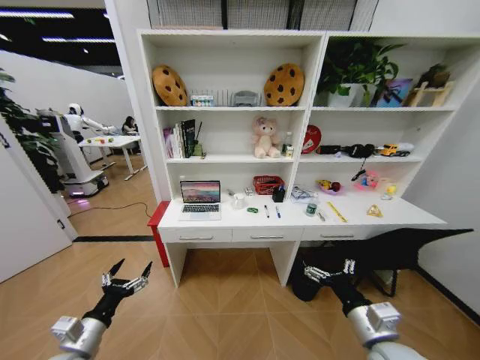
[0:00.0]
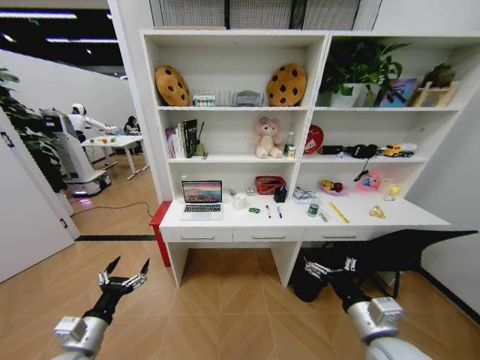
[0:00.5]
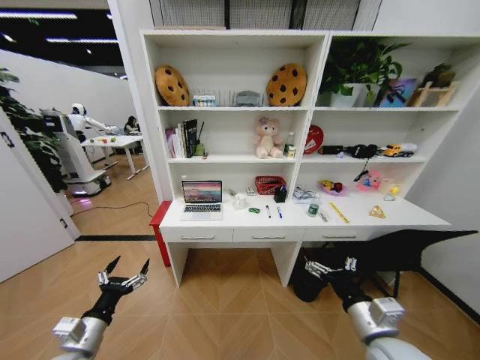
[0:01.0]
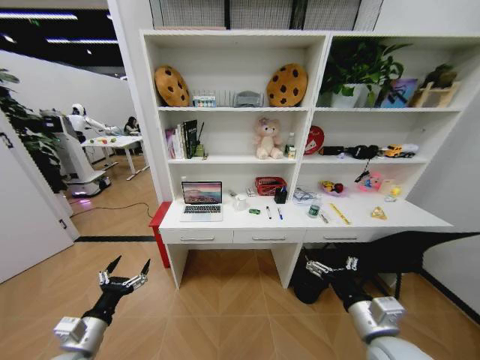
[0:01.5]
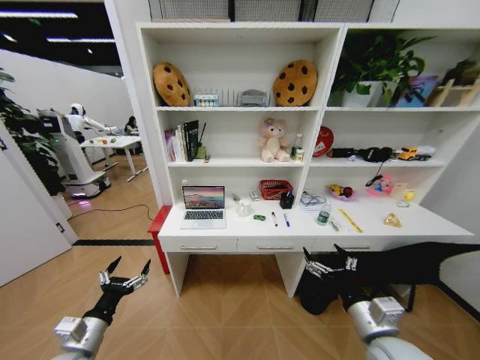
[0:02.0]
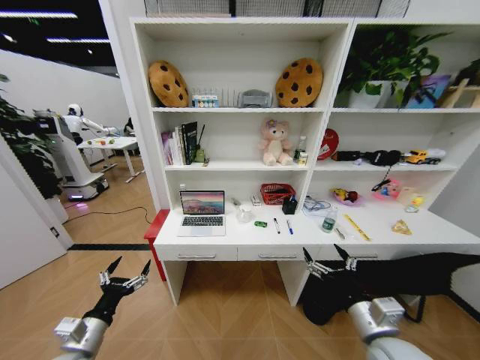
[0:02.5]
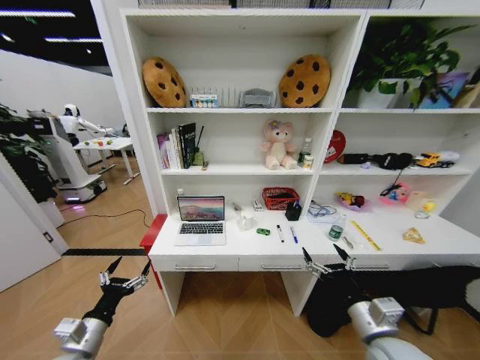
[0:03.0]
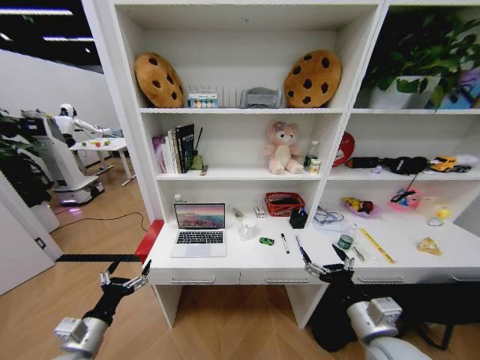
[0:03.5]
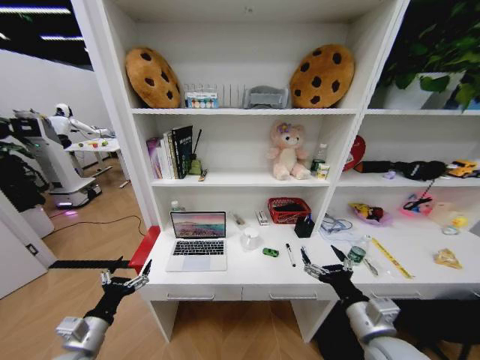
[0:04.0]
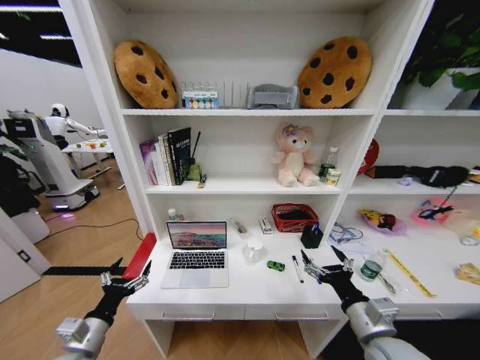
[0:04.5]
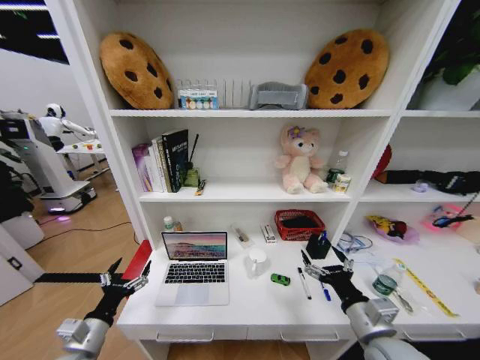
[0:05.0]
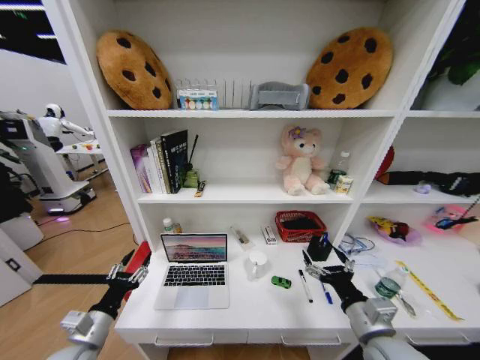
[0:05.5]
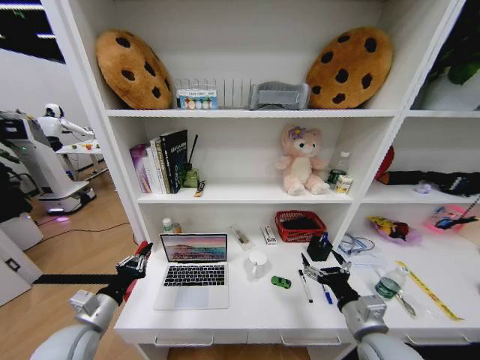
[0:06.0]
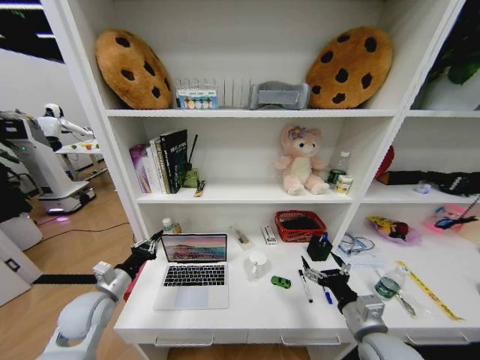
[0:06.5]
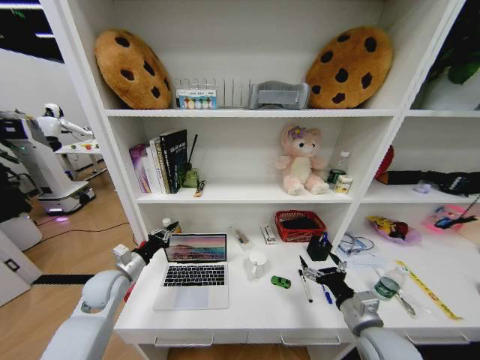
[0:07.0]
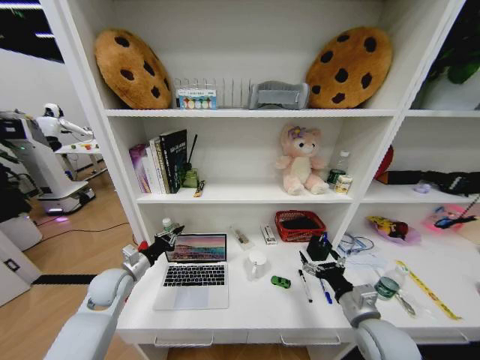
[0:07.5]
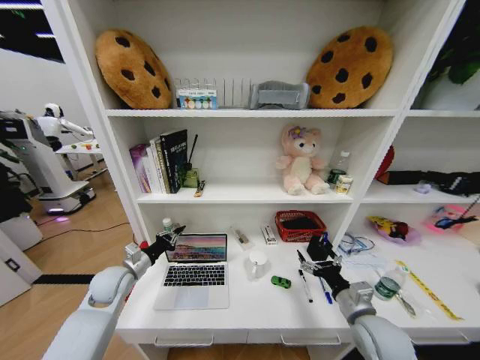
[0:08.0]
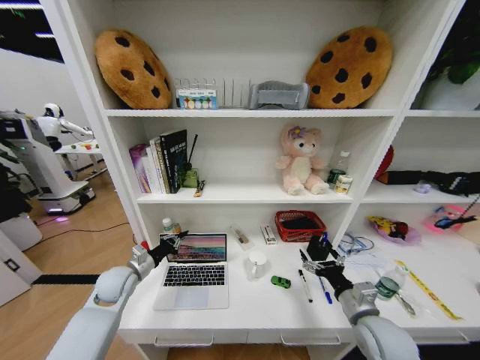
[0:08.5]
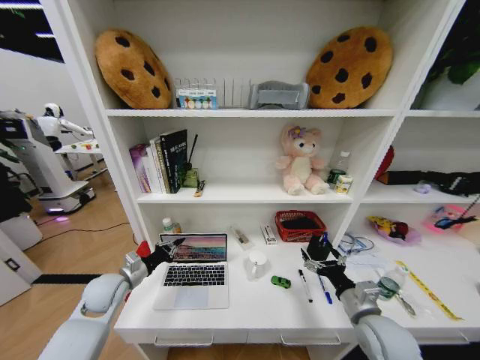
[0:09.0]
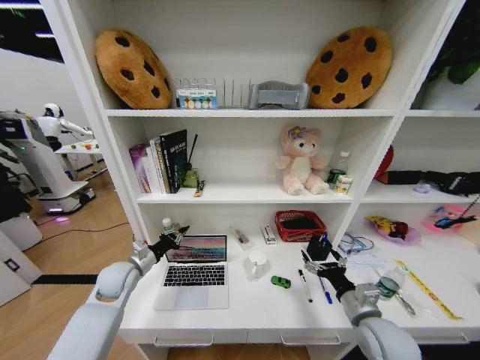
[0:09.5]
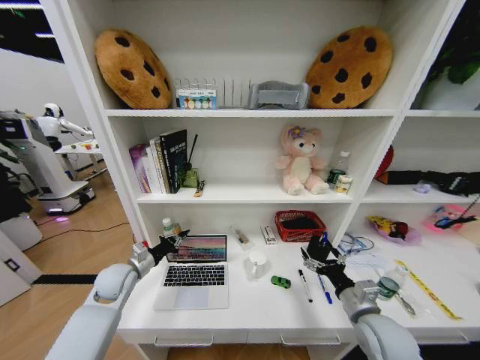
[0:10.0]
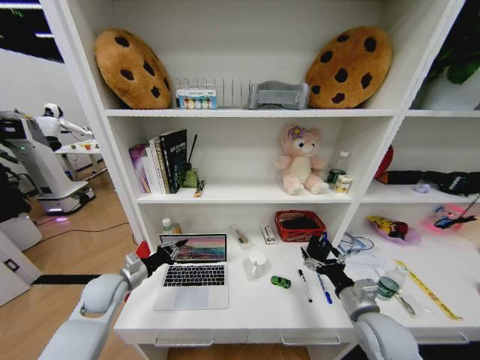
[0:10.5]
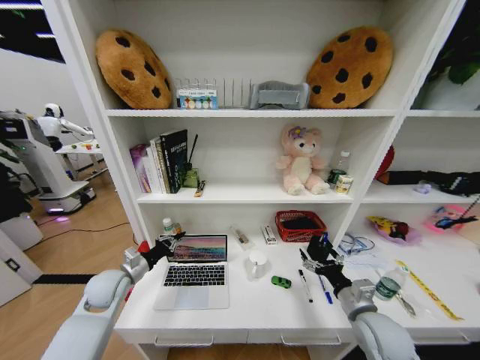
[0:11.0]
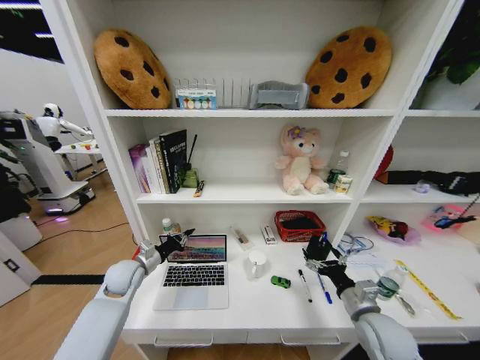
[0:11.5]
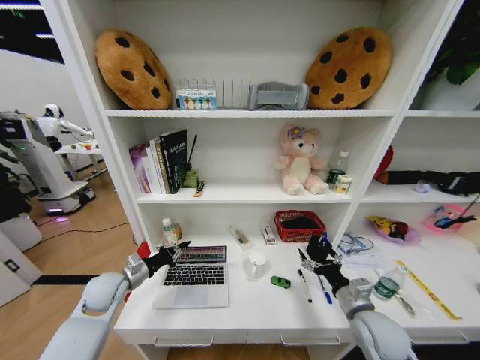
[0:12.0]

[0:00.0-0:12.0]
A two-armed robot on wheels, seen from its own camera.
Task of the whole recording: Organize the objects on the table.
0:04.0 to 0:06.0: The left gripper changes place by approximately 5 cm, and closes its fingers.
0:06.0 to 0:08.0: The right gripper ends up about 5 cm from where it was. The left gripper goes approximately 15 cm forward.
0:08.0 to 0:12.0: The grippers move only a little.

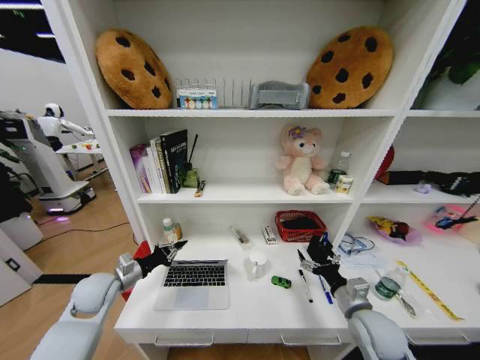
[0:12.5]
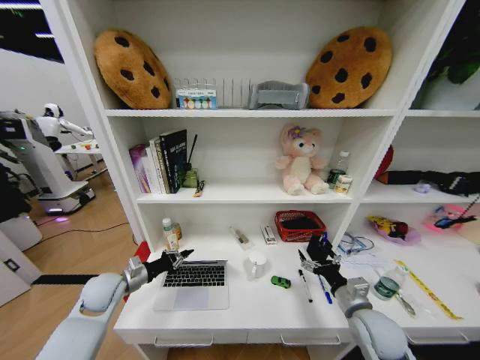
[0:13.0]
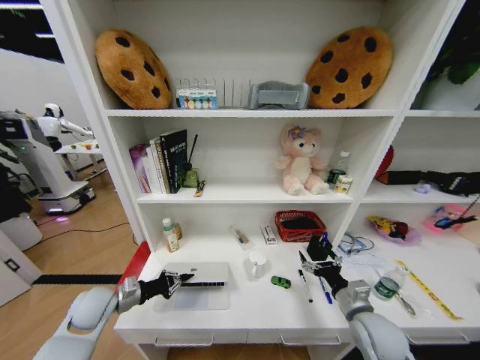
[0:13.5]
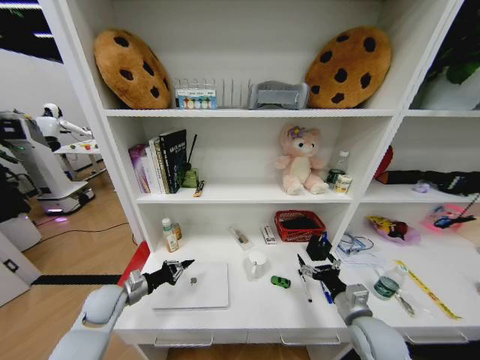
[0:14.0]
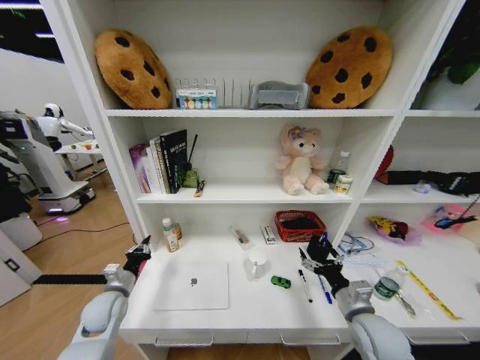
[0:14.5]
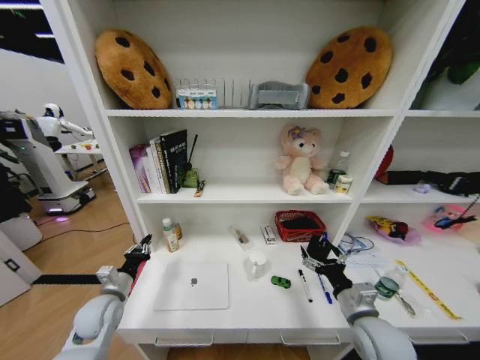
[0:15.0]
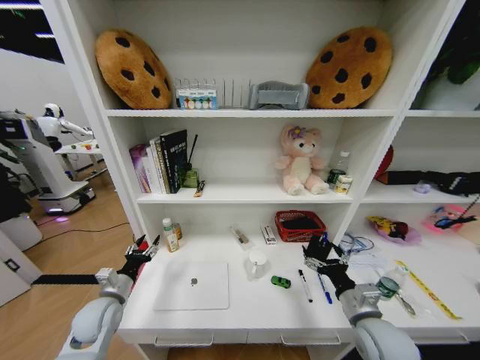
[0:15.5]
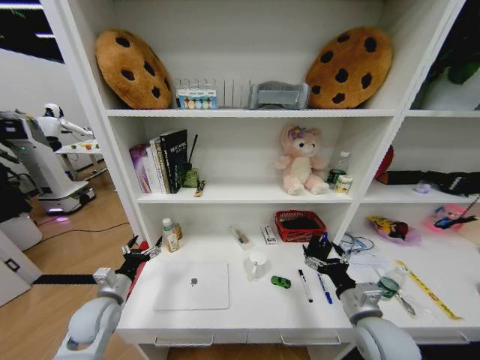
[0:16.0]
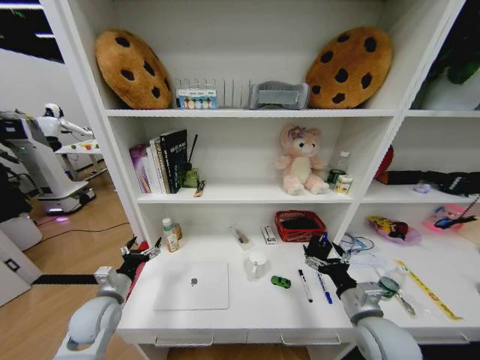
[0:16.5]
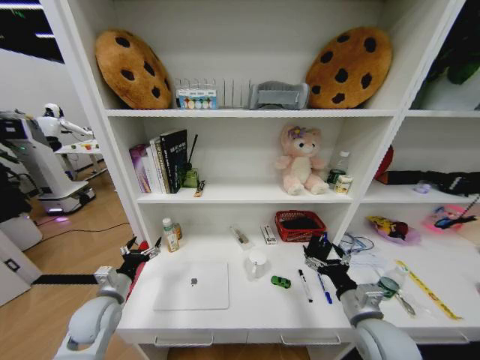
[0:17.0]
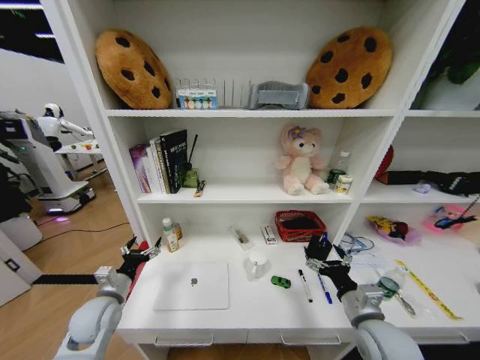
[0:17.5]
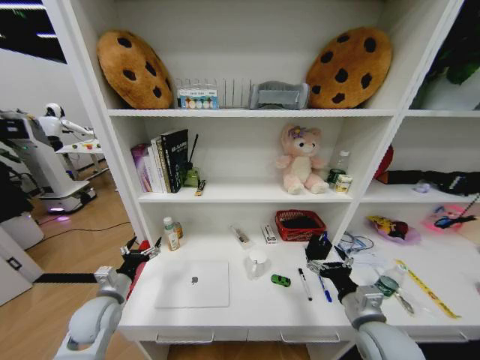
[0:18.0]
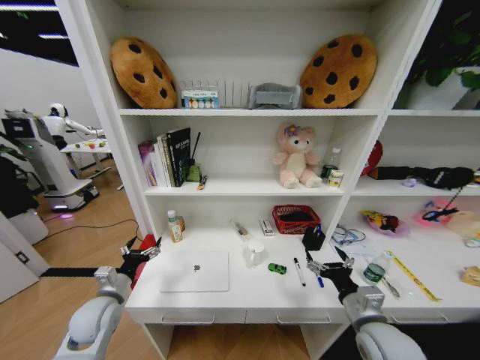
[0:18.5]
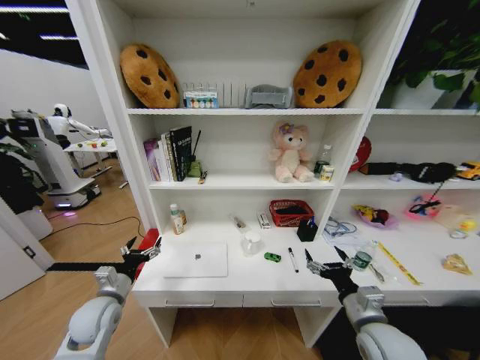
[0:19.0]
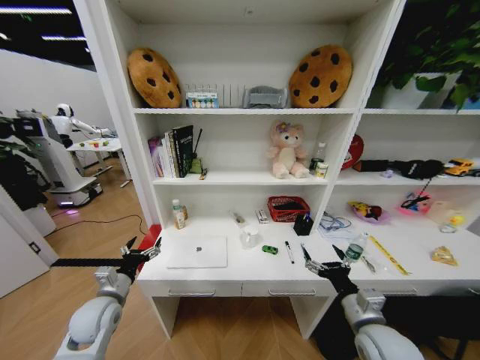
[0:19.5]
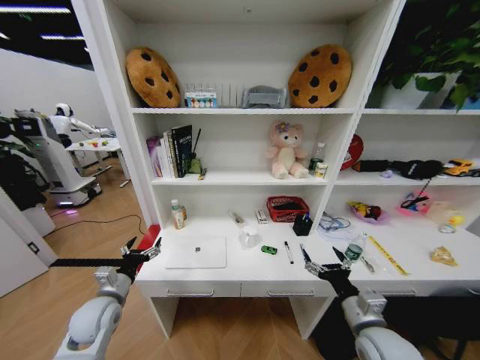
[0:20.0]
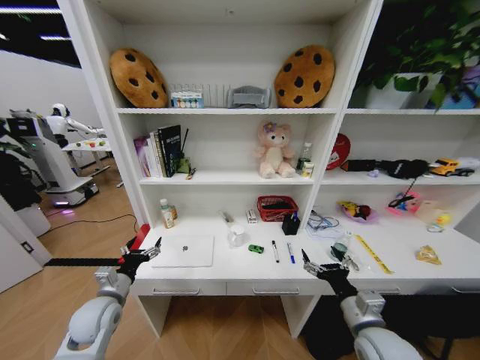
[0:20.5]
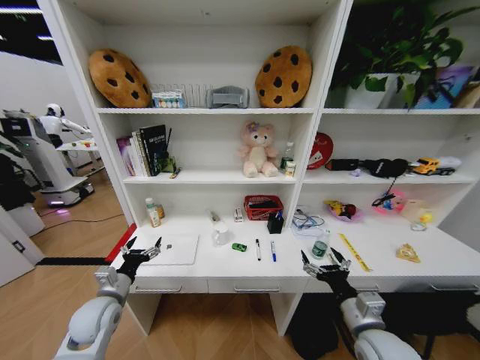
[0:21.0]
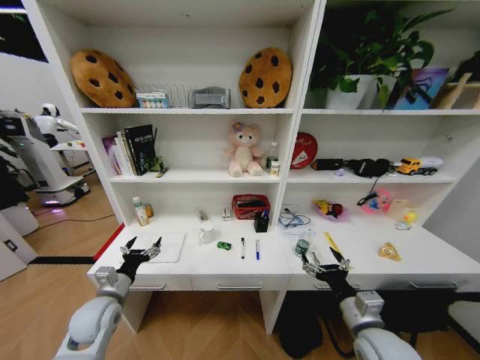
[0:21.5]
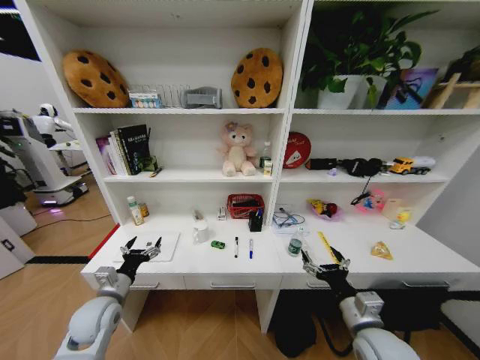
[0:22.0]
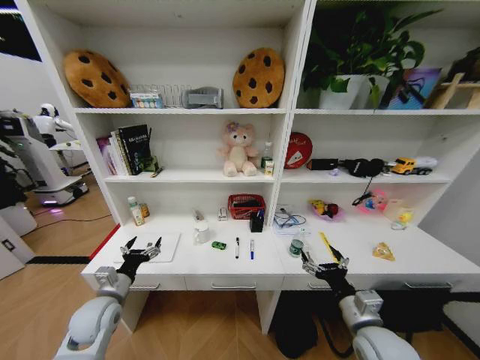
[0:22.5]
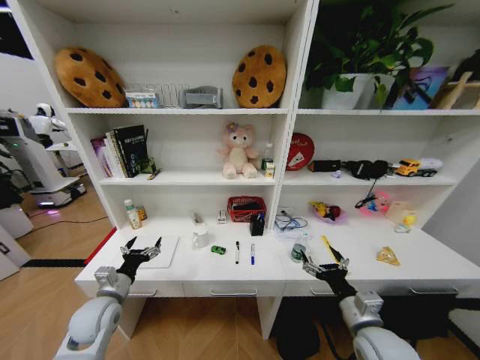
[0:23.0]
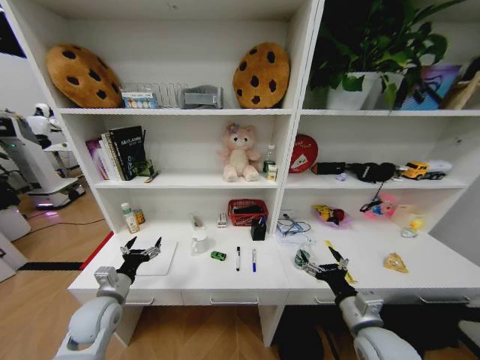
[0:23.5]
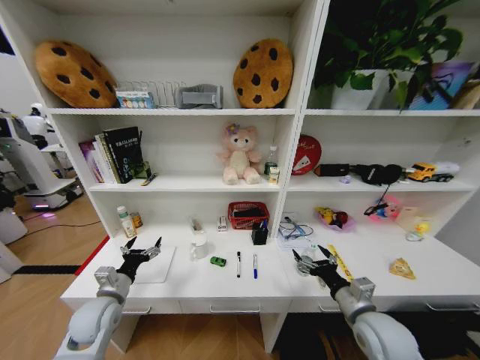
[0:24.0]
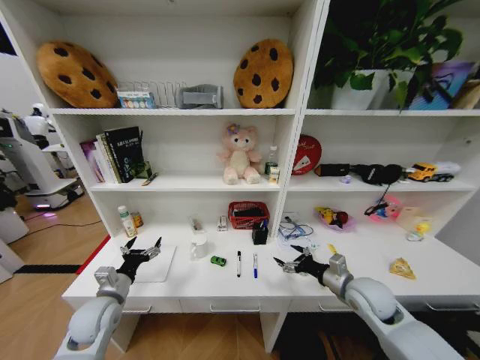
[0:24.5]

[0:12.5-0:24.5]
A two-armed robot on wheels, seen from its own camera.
Task of the whole recording: Organize the objects on the table.
0:12.5 to 0:14.5: The left gripper goes approximately 5 cm downward.
0:14.5 to 0:16.5: The left gripper opens its fingers.
0:22.5 to 0:24.5: The right gripper travels forward by some 10 cm.

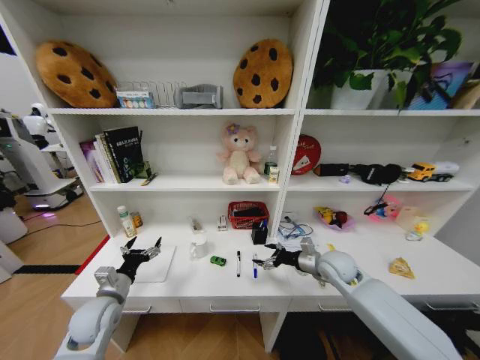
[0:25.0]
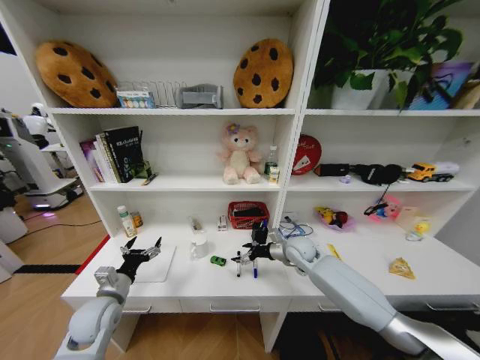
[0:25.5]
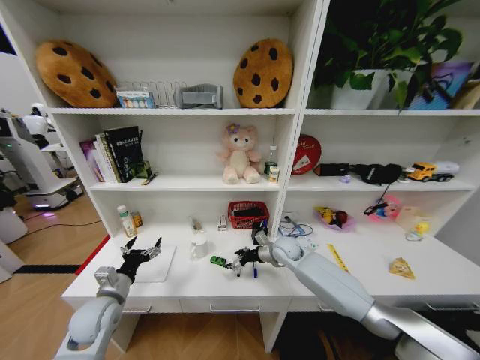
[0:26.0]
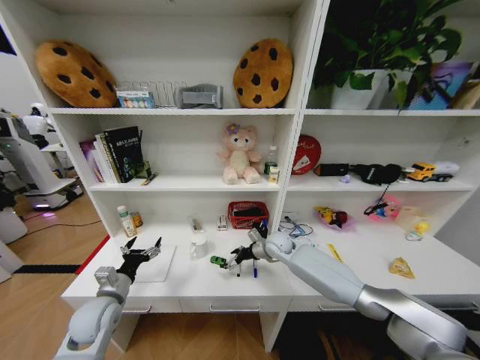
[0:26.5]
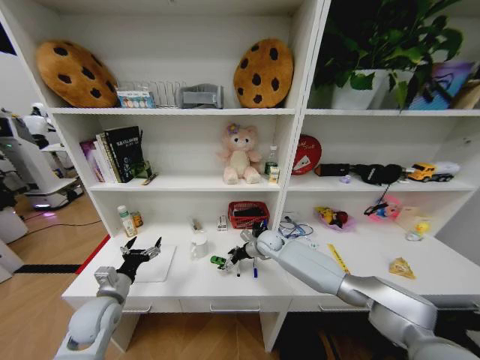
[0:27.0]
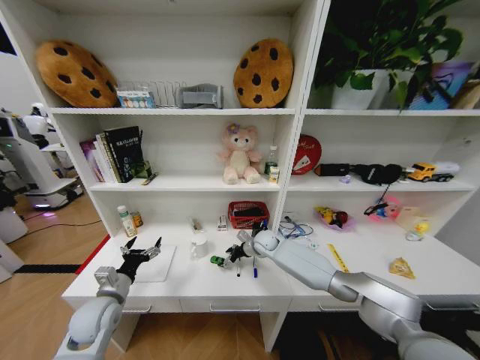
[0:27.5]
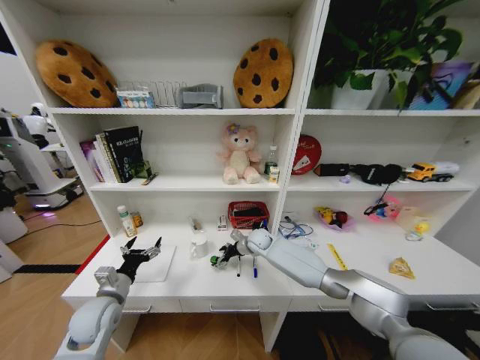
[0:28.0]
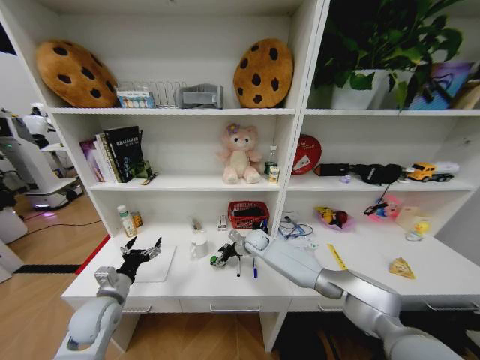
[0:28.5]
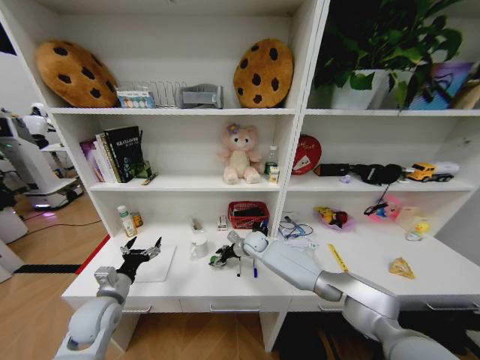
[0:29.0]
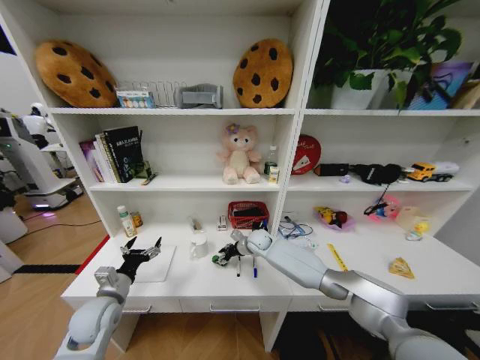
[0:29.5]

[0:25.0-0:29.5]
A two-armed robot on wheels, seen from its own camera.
Task of the whole recording: Organize the objects on the table.
0:25.0 to 0:27.0: The right gripper heads to the left and forward, covering some 20 cm.
0:27.0 to 0:29.5: The right gripper closes its fingers.
